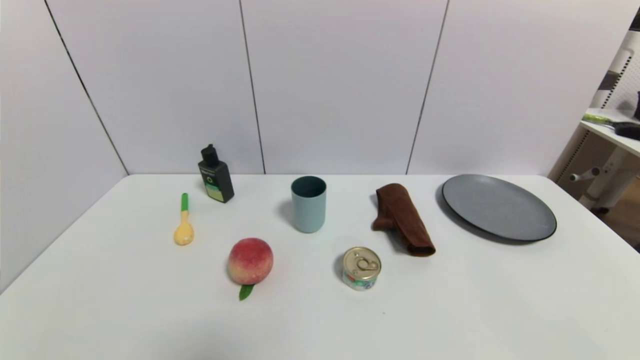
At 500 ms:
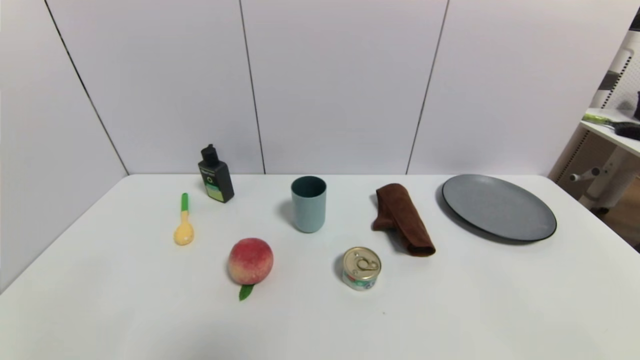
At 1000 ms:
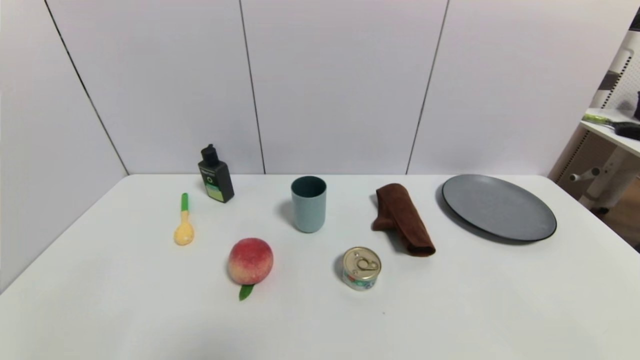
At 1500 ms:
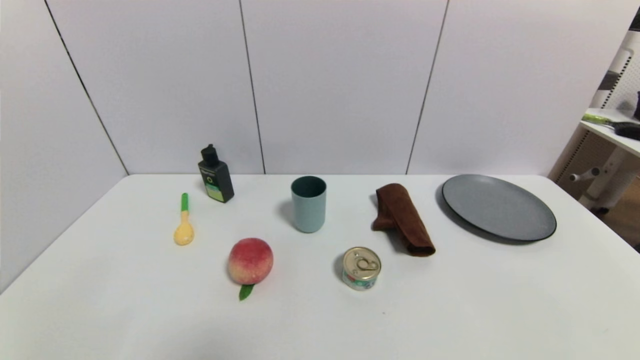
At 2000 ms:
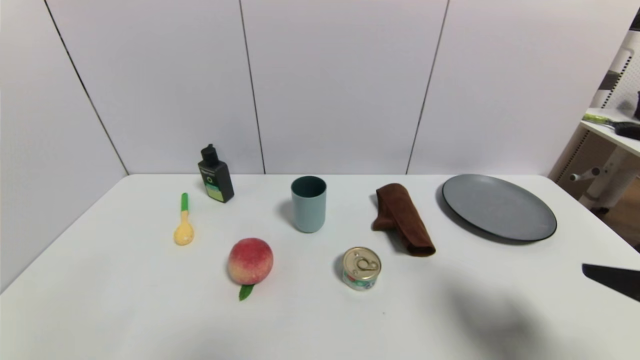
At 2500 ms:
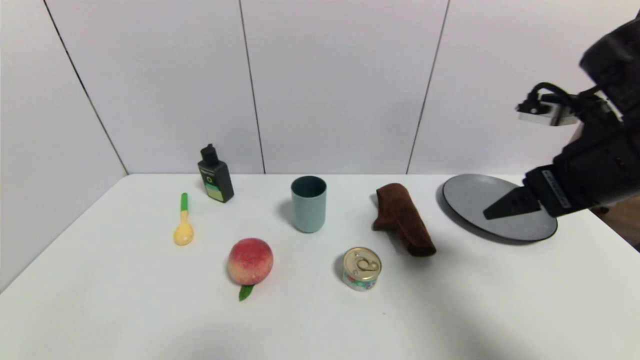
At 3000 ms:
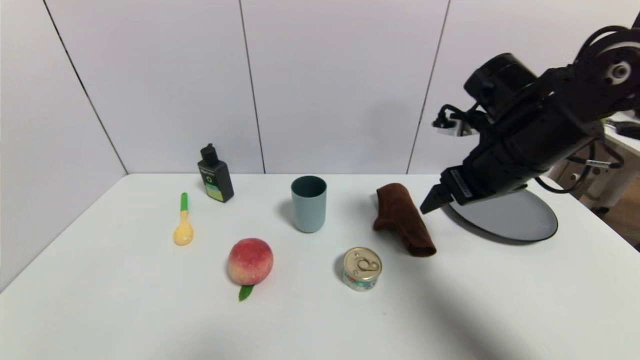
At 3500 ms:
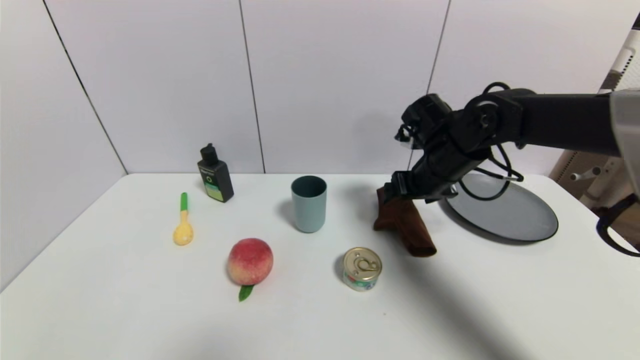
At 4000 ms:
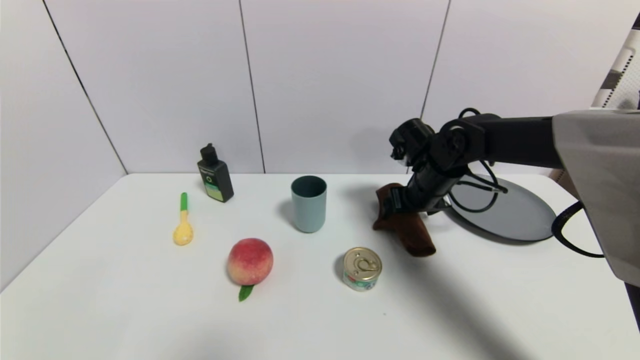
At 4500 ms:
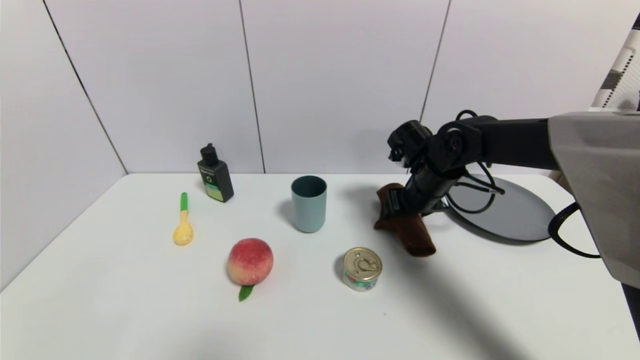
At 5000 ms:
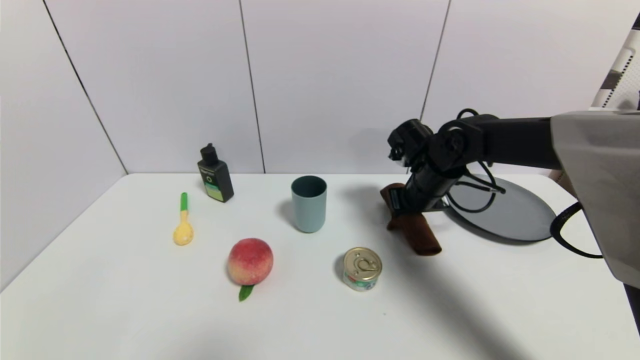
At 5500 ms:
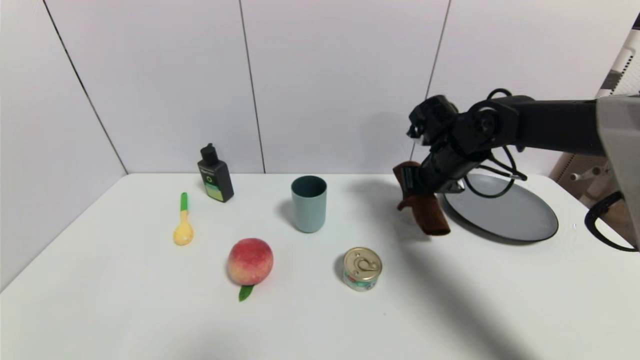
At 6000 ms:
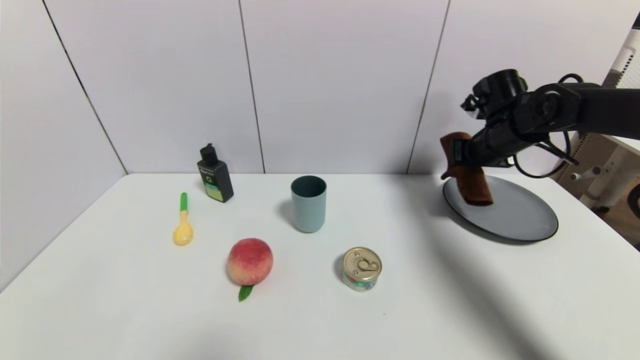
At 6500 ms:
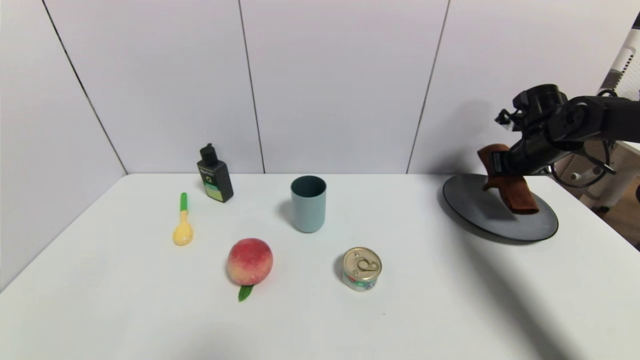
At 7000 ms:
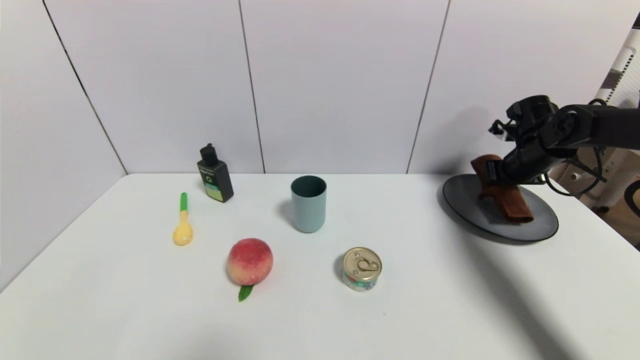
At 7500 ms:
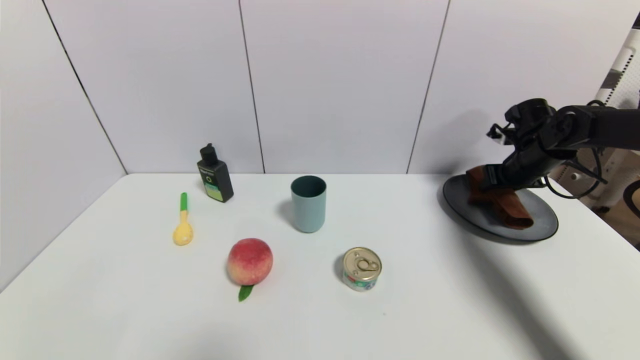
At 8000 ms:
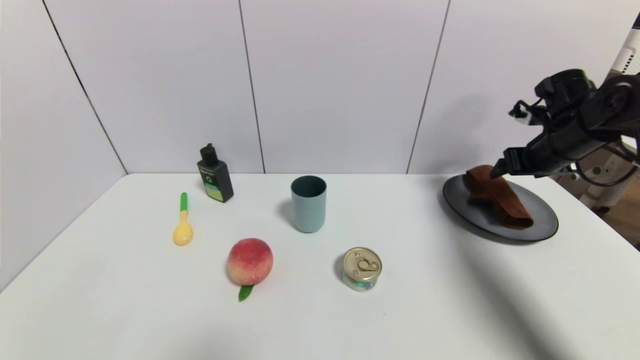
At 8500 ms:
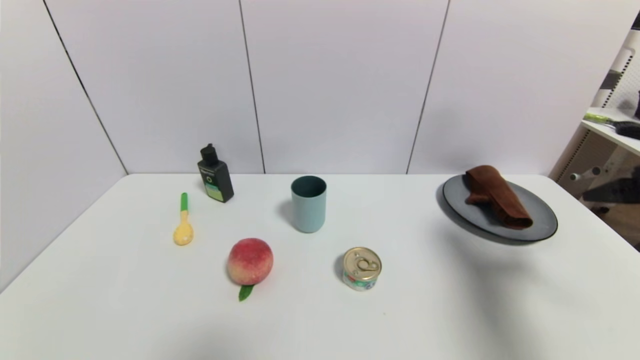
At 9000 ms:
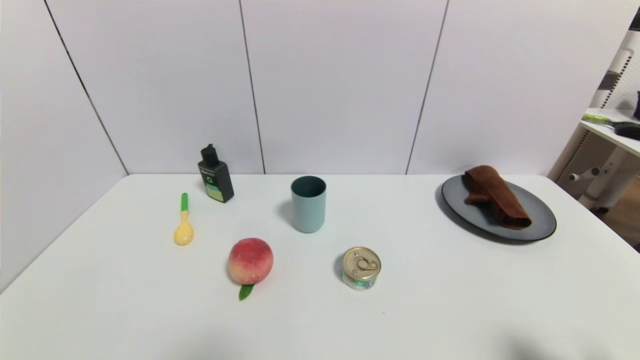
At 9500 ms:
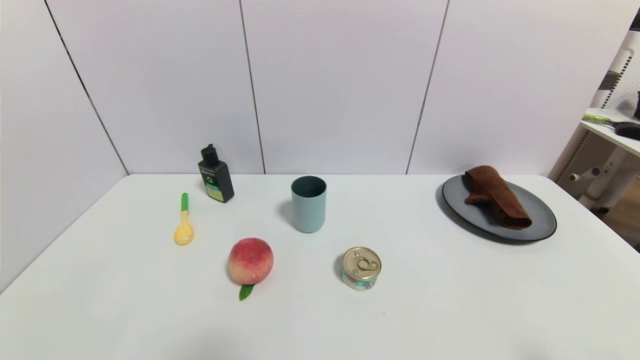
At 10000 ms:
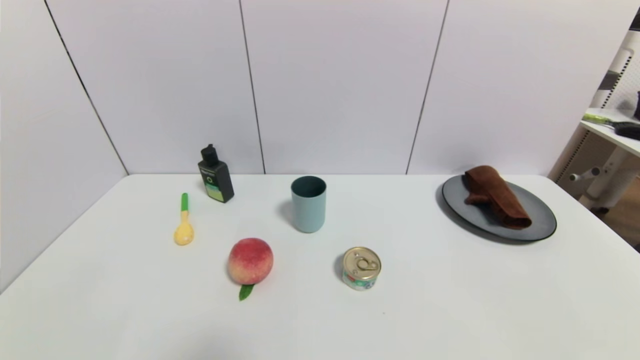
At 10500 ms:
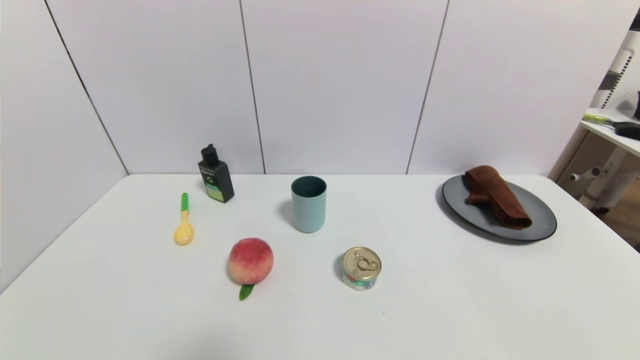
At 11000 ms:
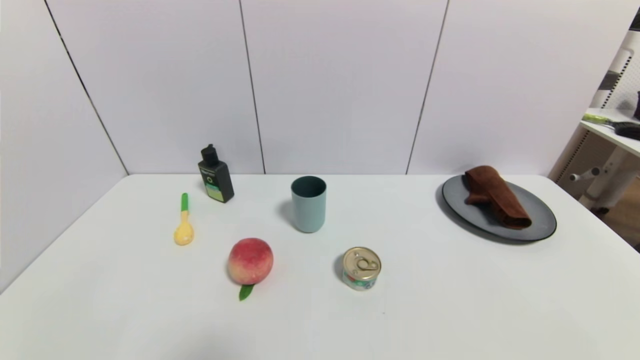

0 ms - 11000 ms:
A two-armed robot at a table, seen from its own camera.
Task of the whole recording: use a gripper to pick the target object and place on the gray plate.
Step, 0 ms - 5000 ms: Grasp the brown towel with the right gripper.
Step, 5500 ms - 7500 ms: Place the brown towel on the gray plate with the right gripper.
0 ms - 2000 ms: The right gripper moves upward and forward, about 20 cm.
2000 ms - 3500 ms: The right gripper shifts approximately 30 cm forward and to the left.
3500 ms - 5500 ms: The right gripper closes.
5500 ms - 7500 ms: The right gripper is displaced to the right by about 15 cm, and opens up.
7500 ms - 9000 ms: The right gripper goes approximately 40 cm backward, and opens its fingers.

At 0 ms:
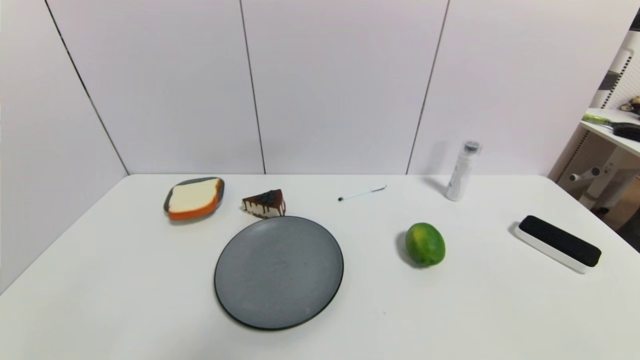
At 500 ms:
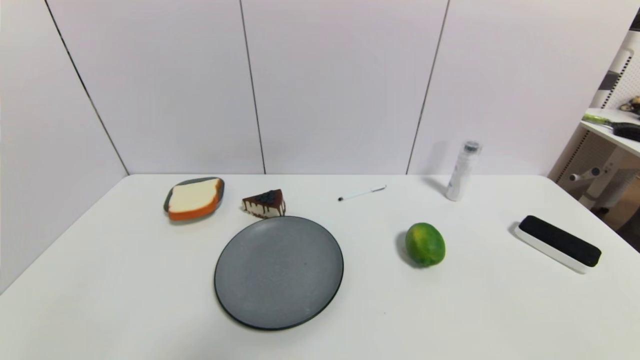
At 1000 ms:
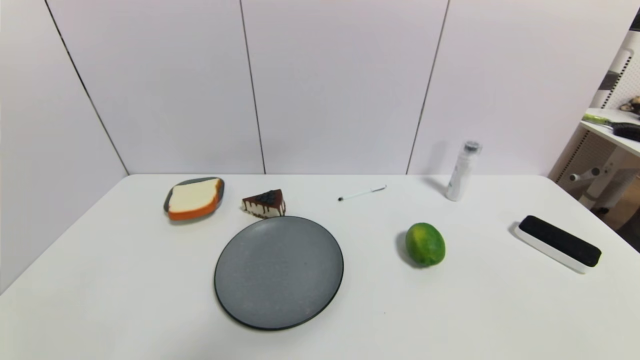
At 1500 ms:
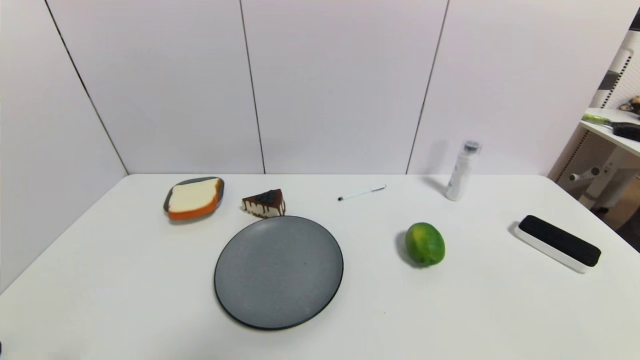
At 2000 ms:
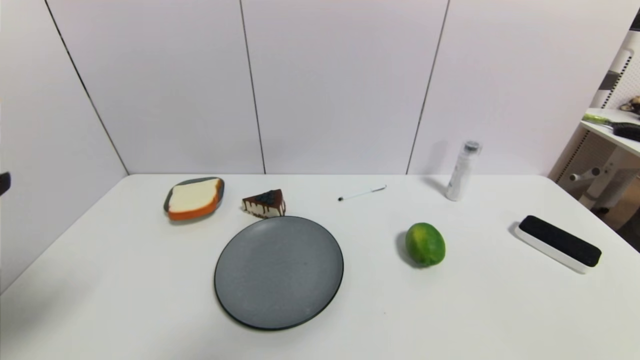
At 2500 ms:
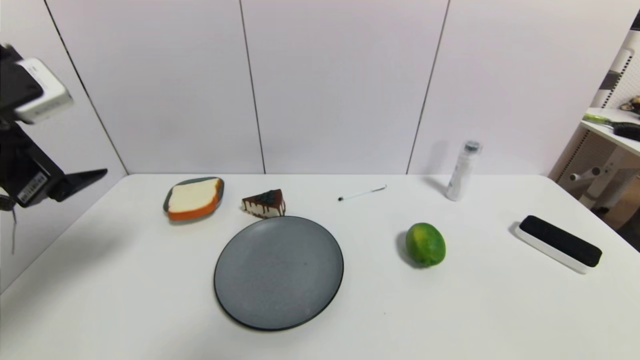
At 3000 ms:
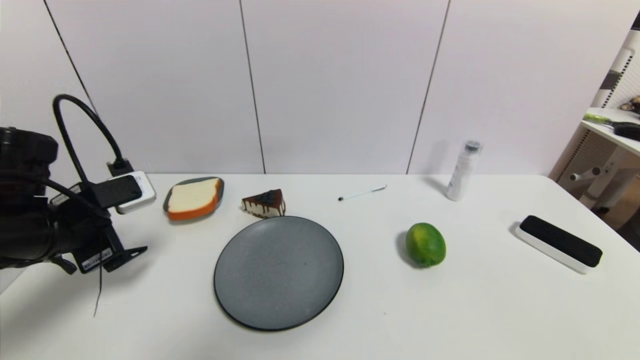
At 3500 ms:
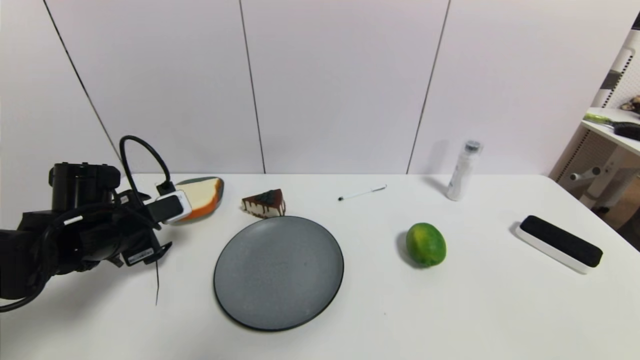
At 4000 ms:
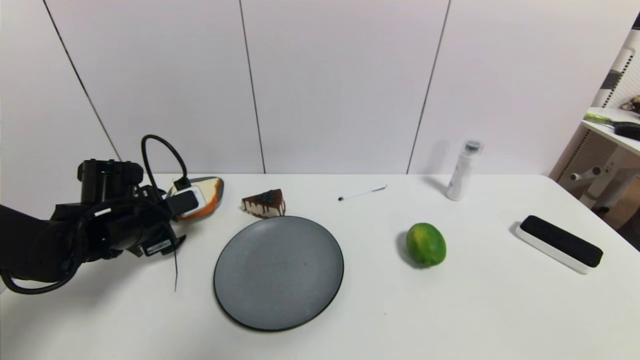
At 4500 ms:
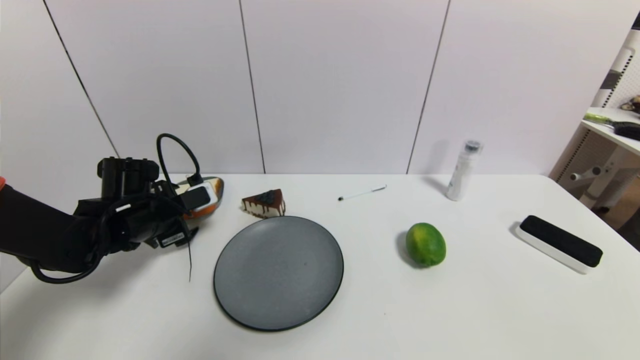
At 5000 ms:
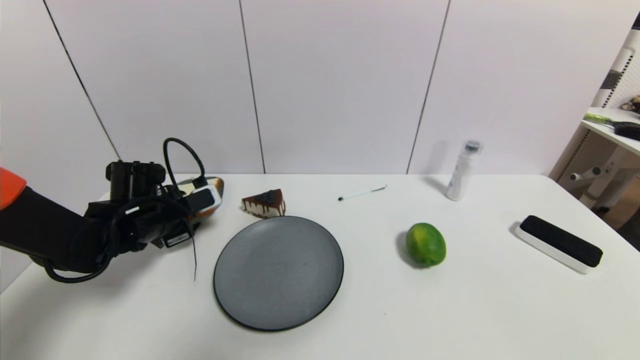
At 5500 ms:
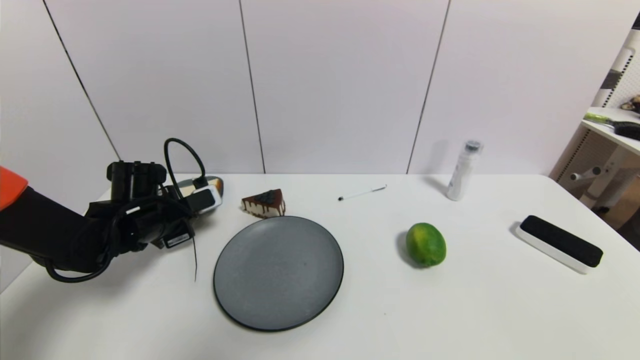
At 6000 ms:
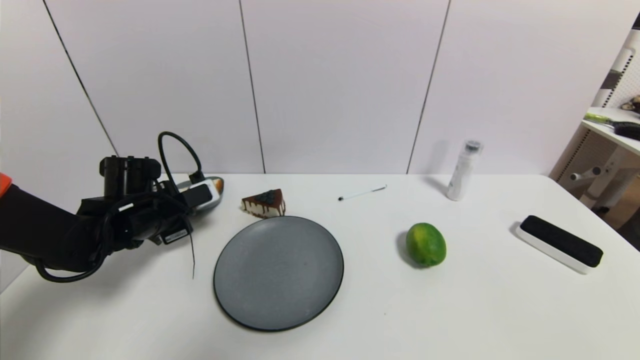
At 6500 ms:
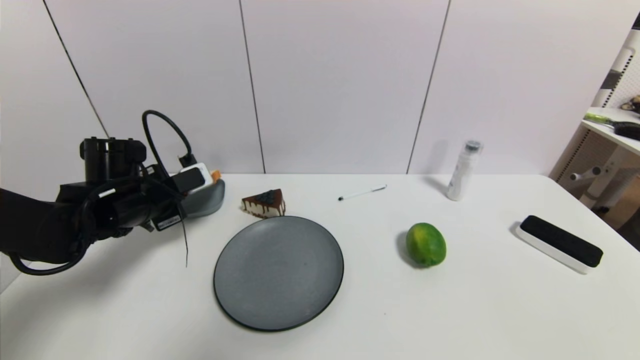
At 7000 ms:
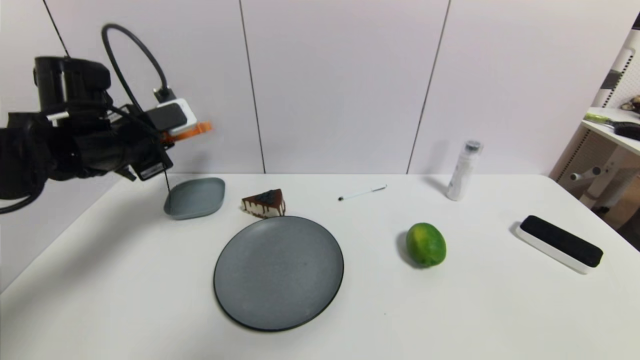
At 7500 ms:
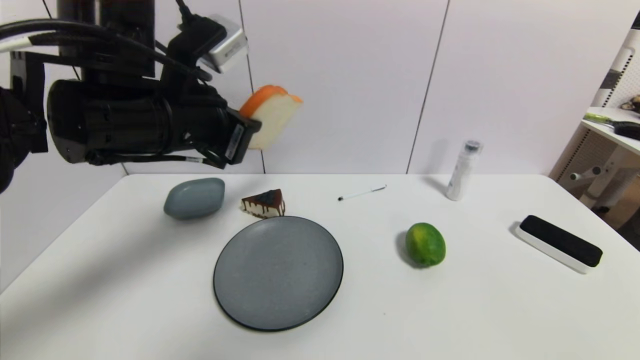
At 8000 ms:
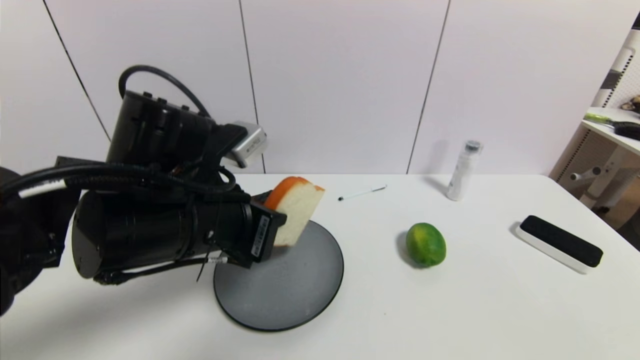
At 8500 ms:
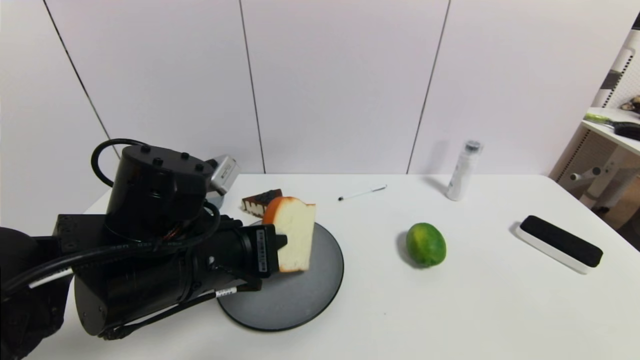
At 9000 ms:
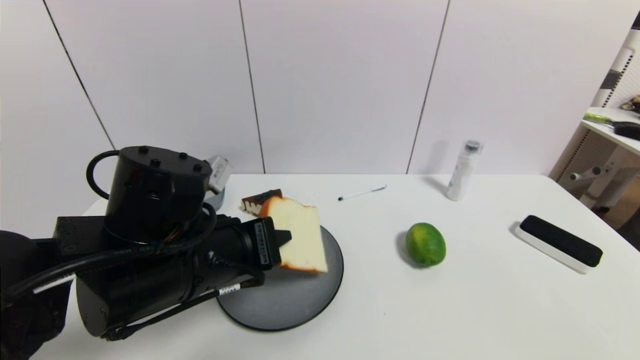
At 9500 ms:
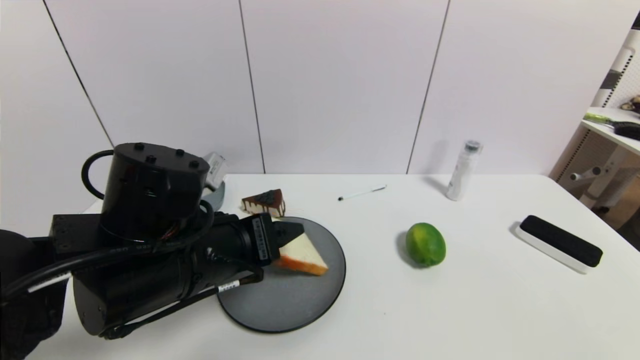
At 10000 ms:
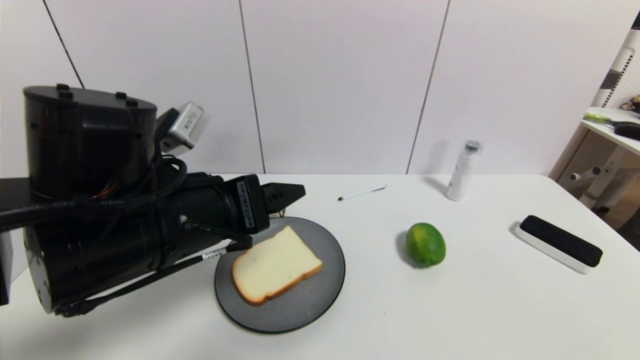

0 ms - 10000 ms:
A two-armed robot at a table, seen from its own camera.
Task of the whole recording: use a gripper to pick the target object and place on the gray plate.
Step, 0 ms - 5500 ms: Grasp the bread slice with the left gripper.
Step, 6000 ms - 9500 ms: Place the bread slice on the gray plate with the left gripper.
0 ms - 2000 ms: The left gripper travels upward by some 25 cm.
2000 ms - 4000 ms: The left gripper shifts some 30 cm forward and downward.
4000 ms - 6000 ms: The left gripper closes up.
6000 ms - 8000 ms: The left gripper is displaced to the right, backward and upward by about 20 cm.
8000 ms - 10000 ms: The left gripper opens its fingers.
